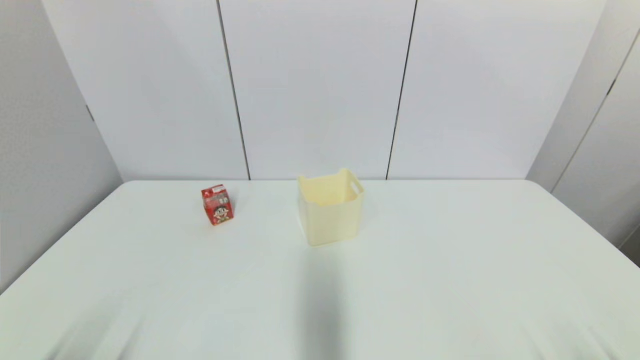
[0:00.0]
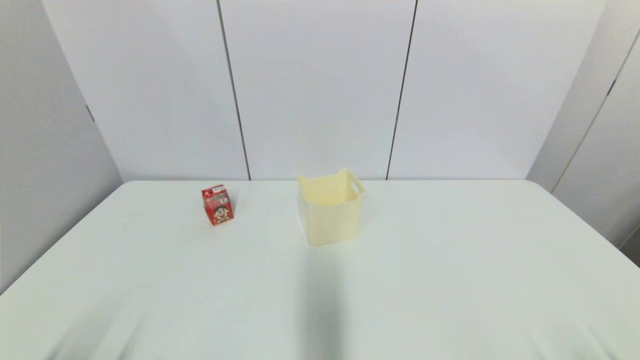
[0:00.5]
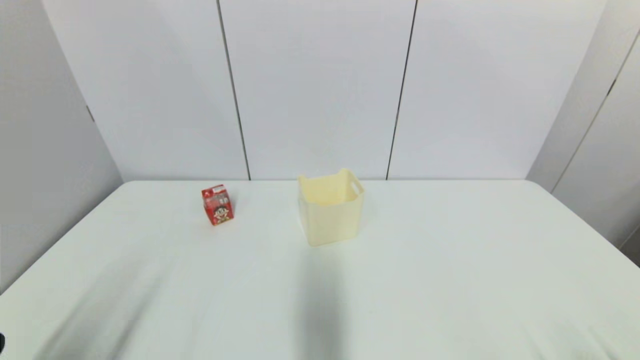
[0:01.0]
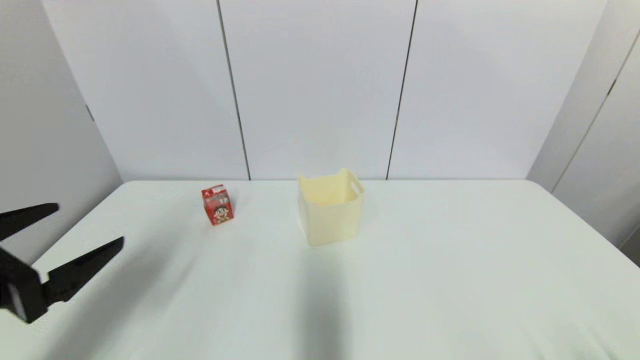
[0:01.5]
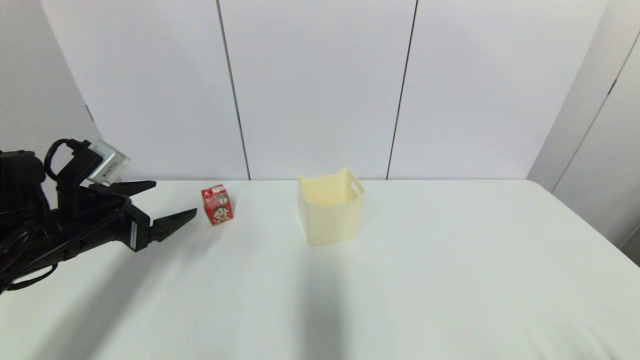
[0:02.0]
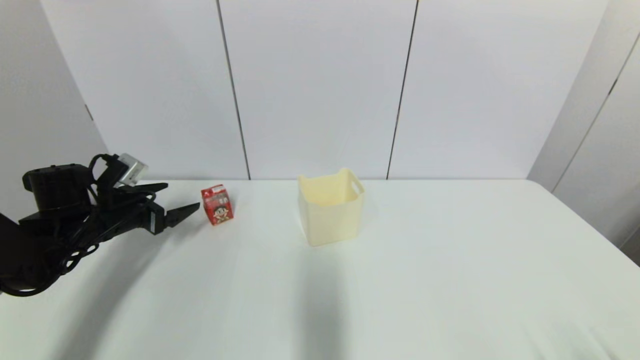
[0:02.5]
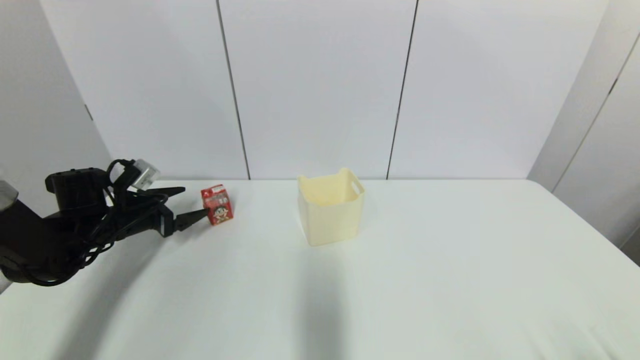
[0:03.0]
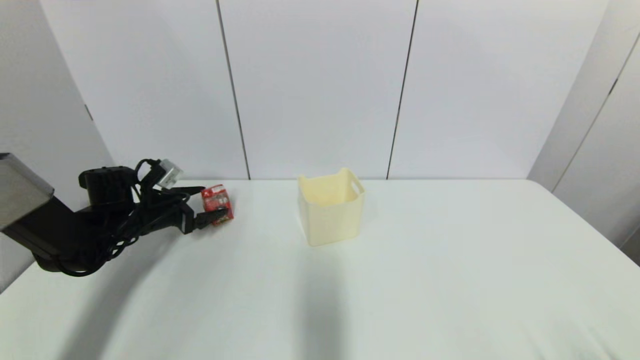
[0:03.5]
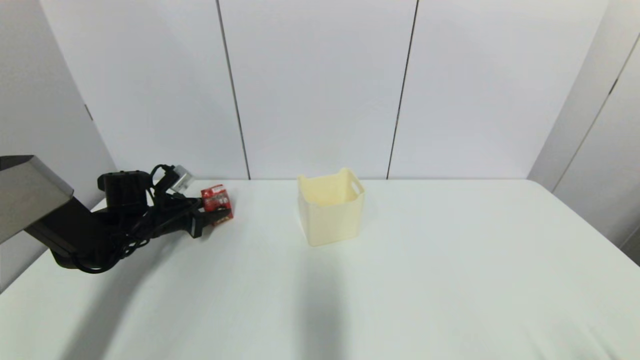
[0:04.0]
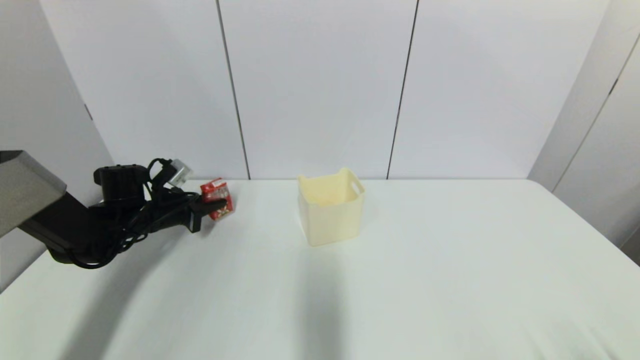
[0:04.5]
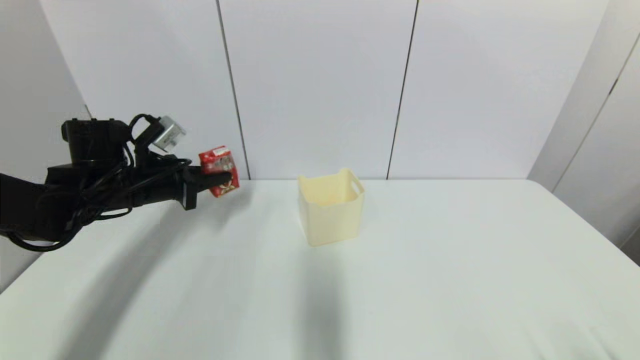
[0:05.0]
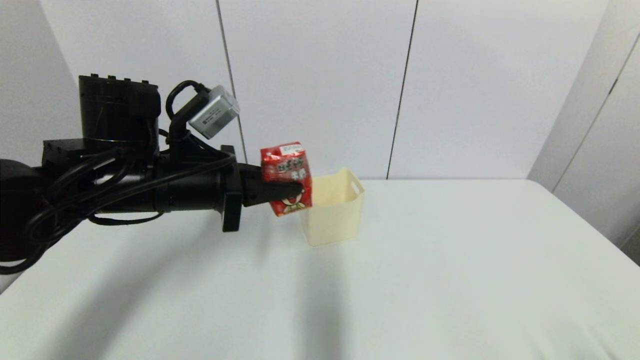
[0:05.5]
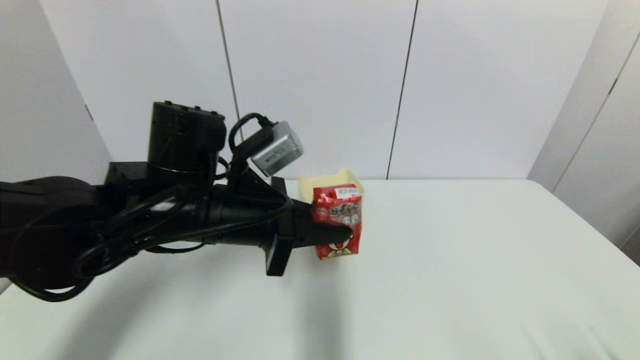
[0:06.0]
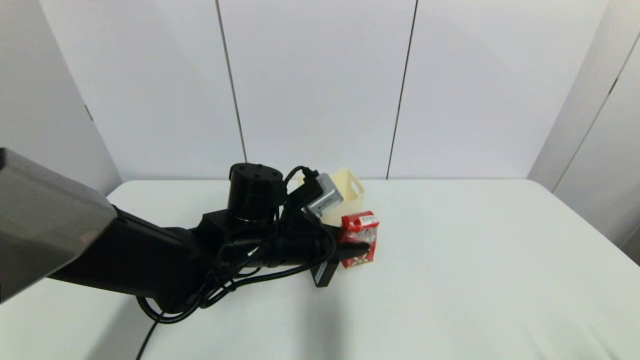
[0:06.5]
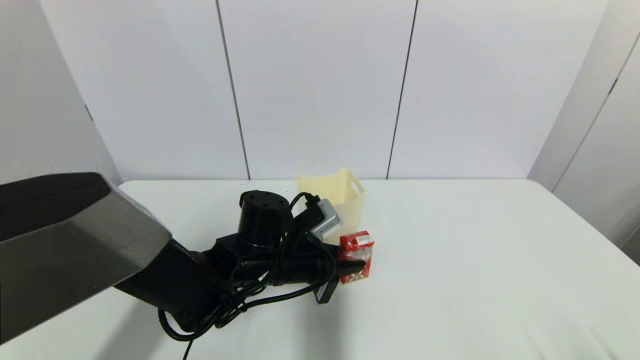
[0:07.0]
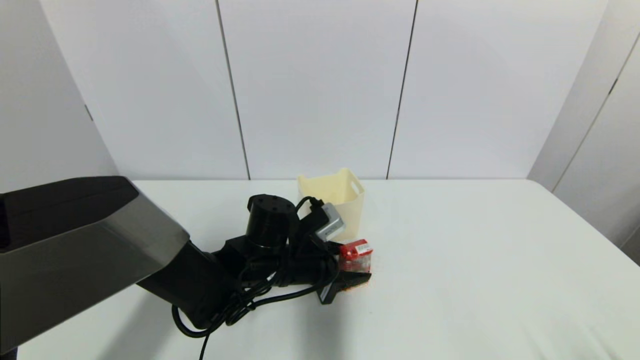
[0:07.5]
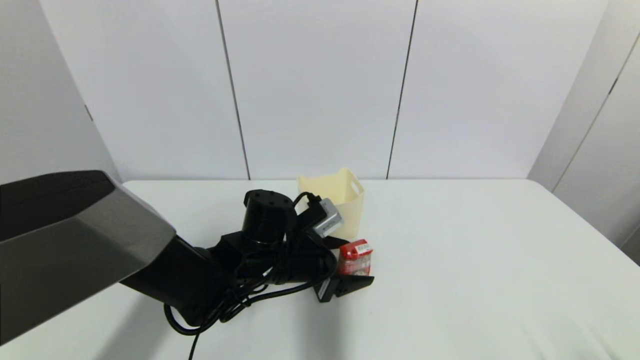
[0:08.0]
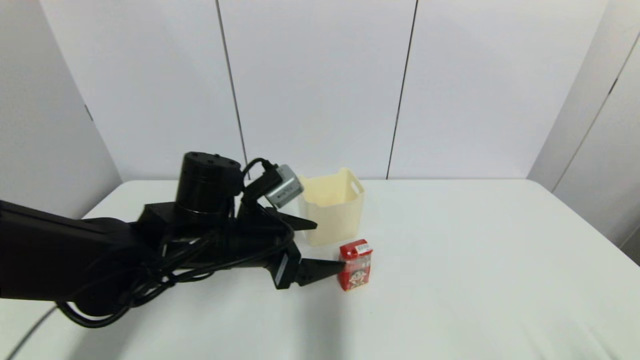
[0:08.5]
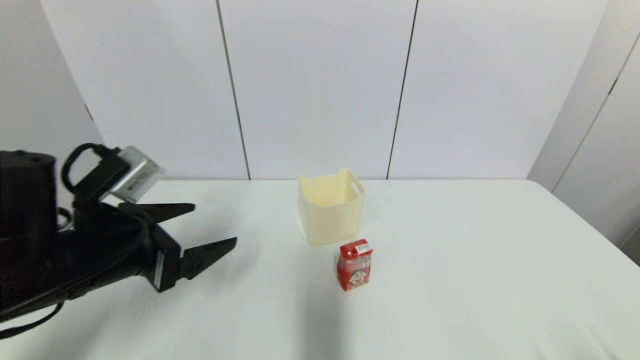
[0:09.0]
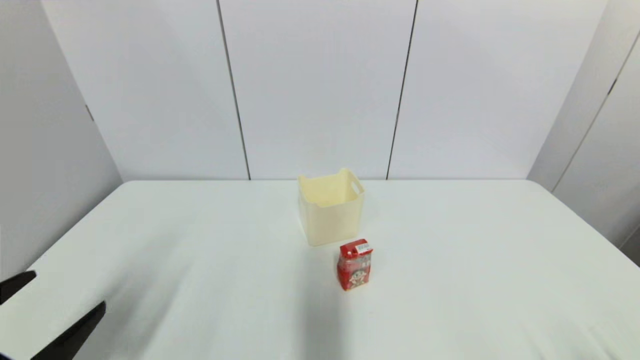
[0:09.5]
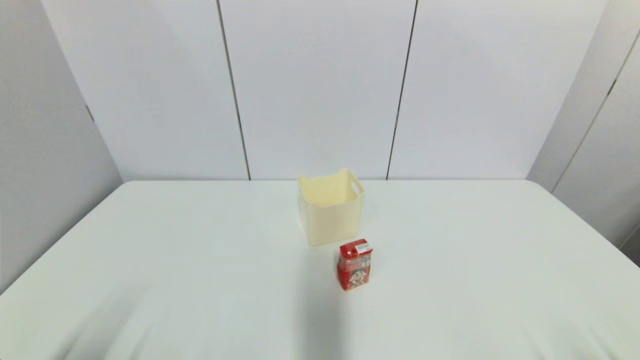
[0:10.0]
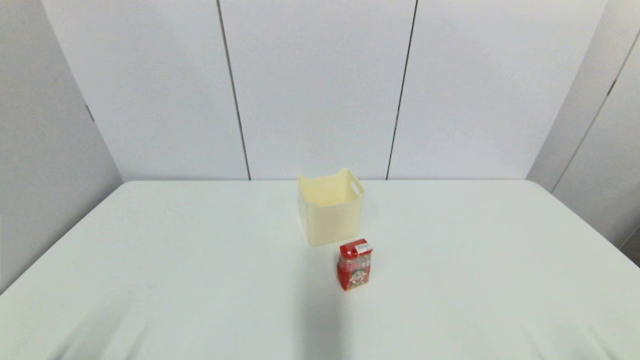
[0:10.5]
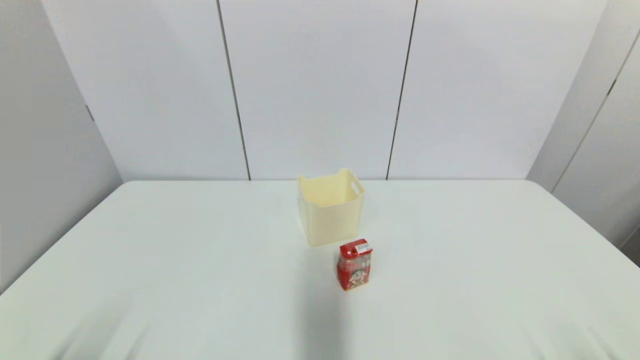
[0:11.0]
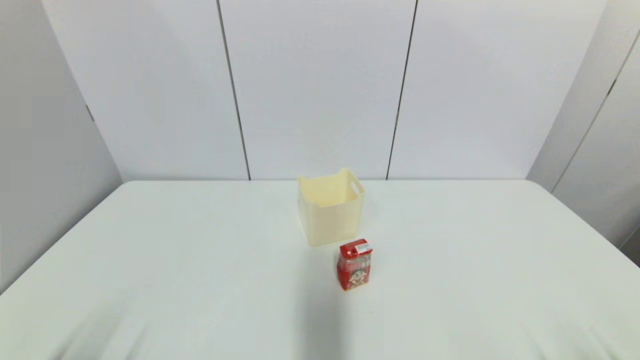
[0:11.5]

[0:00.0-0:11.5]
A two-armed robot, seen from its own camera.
Step, 0:01.0 to 0:04.0: Grasp the wangzai milk with left gripper.
Step, 0:05.0 to 0:07.0: Place the wangzai milk on the table with left gripper.
0:00.0 to 0:02.0: The left gripper heads forward and upward, covering about 25 cm.
0:02.0 to 0:04.0: The left gripper travels forward and downward by roughly 20 cm, and closes.
0:04.0 to 0:06.0: The left gripper shifts roughly 30 cm to the right, backward and upward, and closes its fingers.
0:06.0 to 0:07.5: The left gripper travels downward by approximately 15 cm, and opens up.
0:07.5 to 0:09.5: The left gripper moves to the left and backward, approximately 35 cm, and opens.
0:09.5 to 0:11.5: The left gripper is displaced downward and backward by roughly 10 cm.
